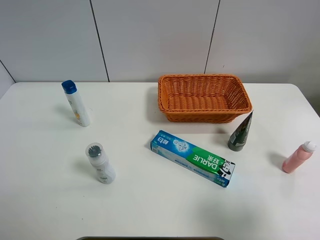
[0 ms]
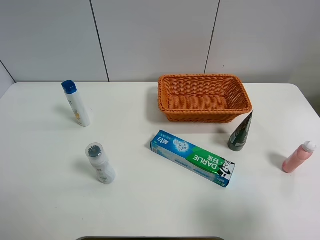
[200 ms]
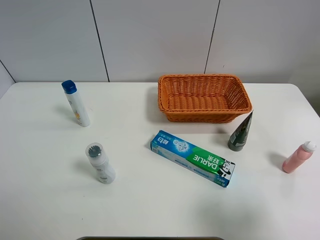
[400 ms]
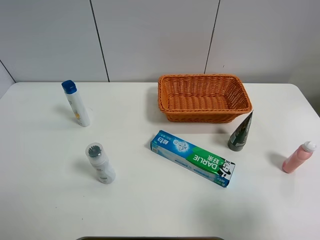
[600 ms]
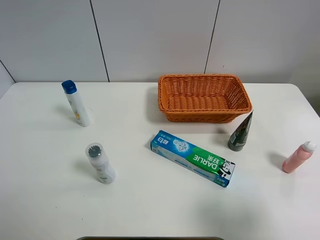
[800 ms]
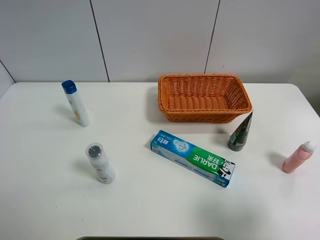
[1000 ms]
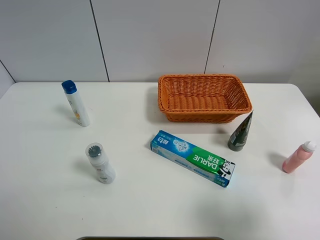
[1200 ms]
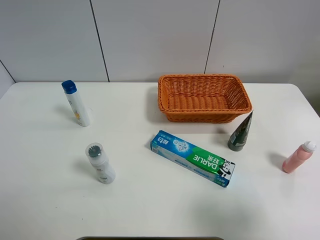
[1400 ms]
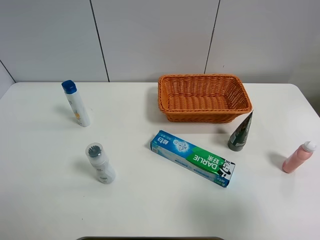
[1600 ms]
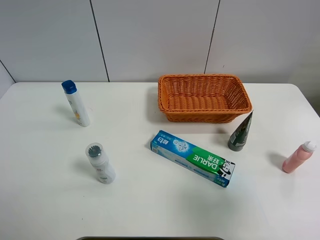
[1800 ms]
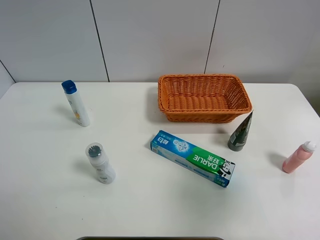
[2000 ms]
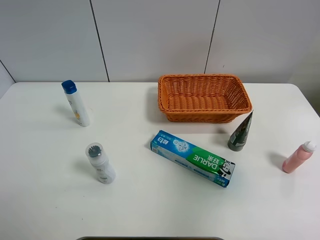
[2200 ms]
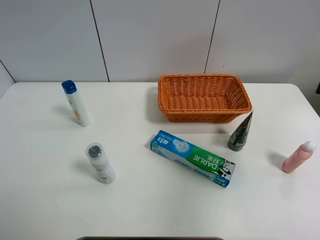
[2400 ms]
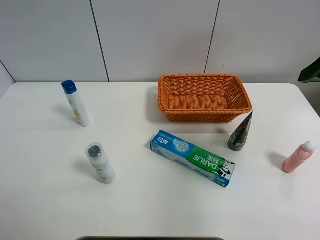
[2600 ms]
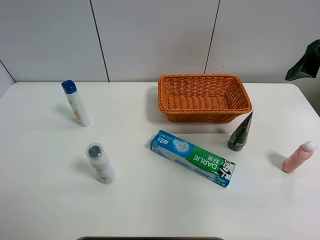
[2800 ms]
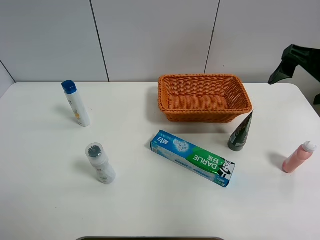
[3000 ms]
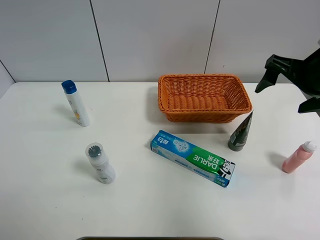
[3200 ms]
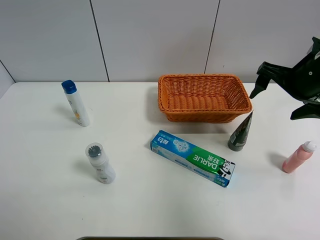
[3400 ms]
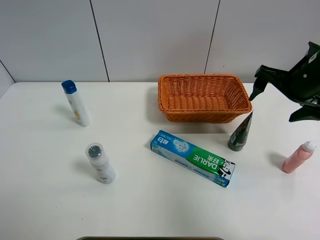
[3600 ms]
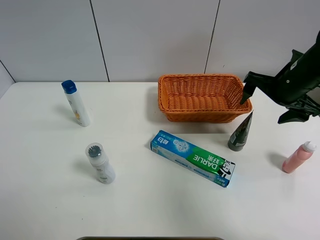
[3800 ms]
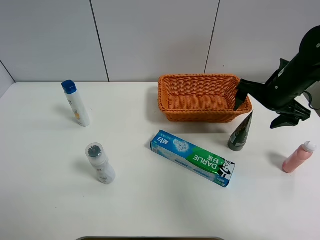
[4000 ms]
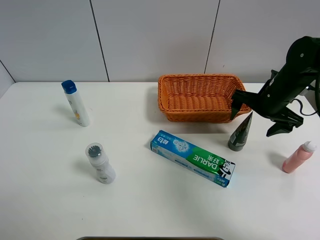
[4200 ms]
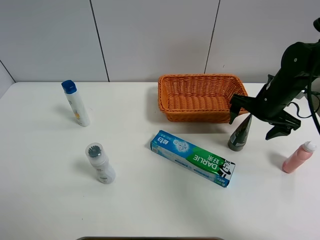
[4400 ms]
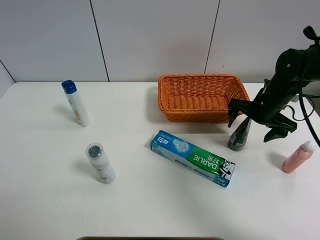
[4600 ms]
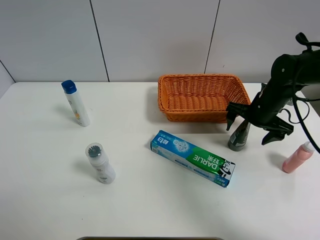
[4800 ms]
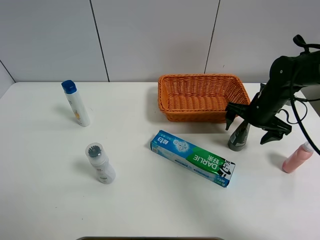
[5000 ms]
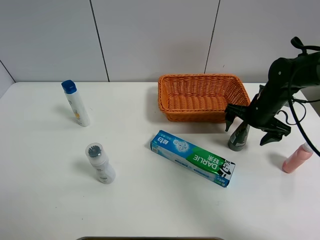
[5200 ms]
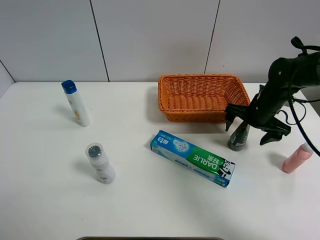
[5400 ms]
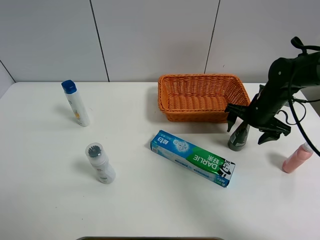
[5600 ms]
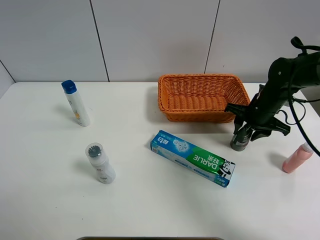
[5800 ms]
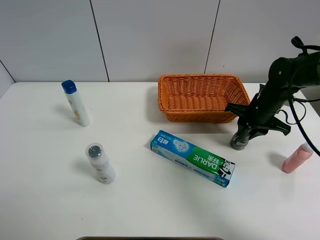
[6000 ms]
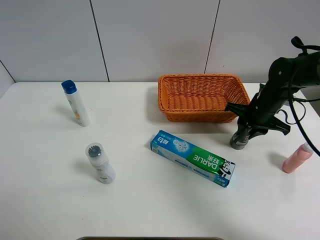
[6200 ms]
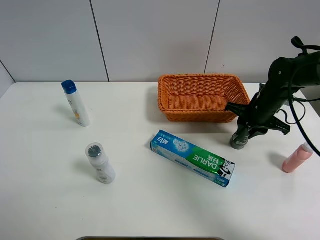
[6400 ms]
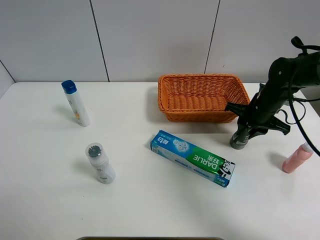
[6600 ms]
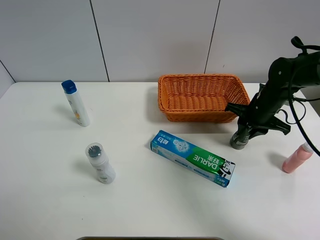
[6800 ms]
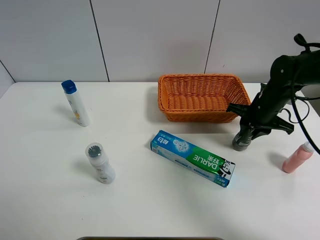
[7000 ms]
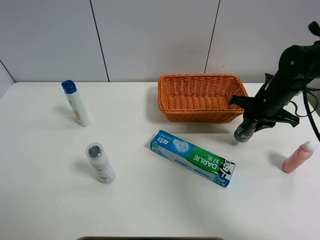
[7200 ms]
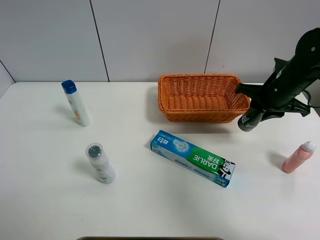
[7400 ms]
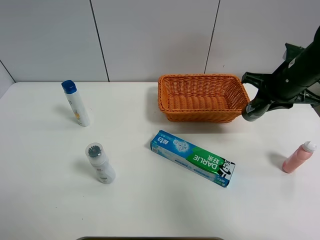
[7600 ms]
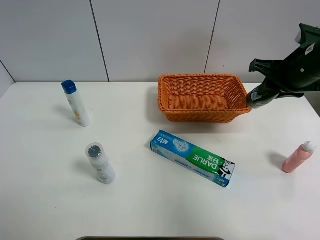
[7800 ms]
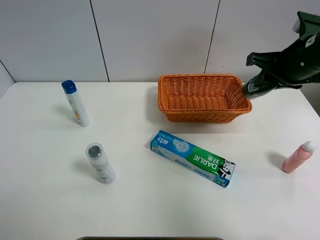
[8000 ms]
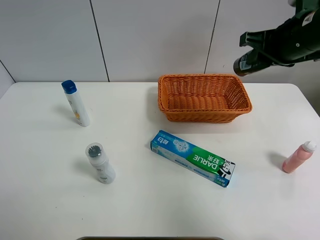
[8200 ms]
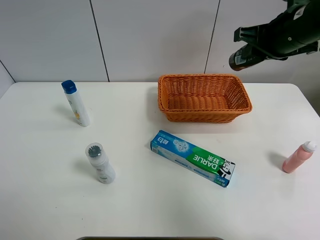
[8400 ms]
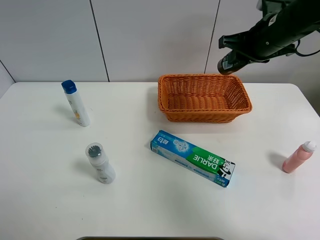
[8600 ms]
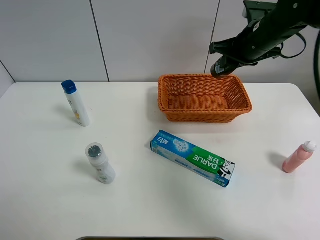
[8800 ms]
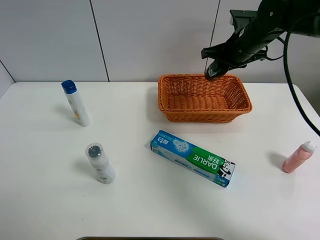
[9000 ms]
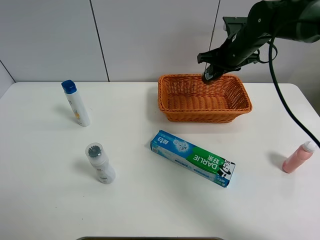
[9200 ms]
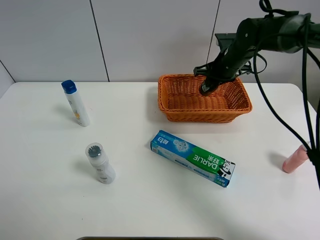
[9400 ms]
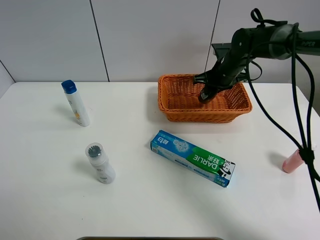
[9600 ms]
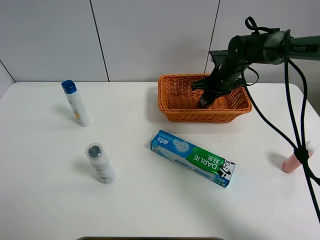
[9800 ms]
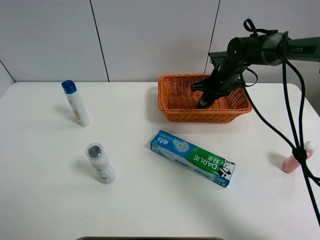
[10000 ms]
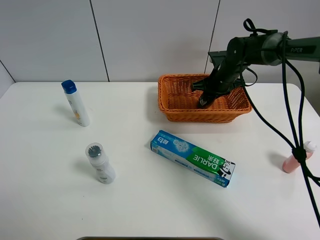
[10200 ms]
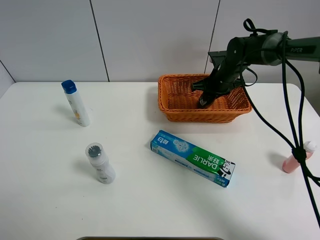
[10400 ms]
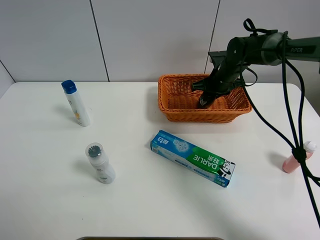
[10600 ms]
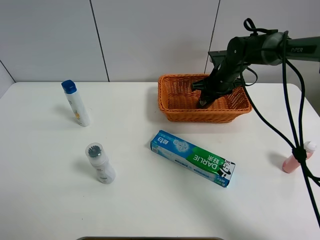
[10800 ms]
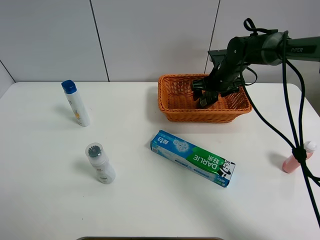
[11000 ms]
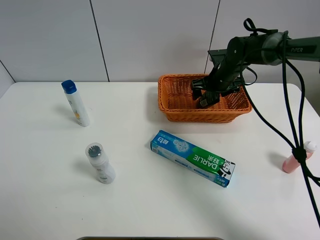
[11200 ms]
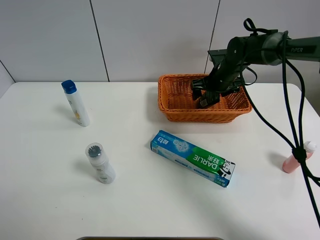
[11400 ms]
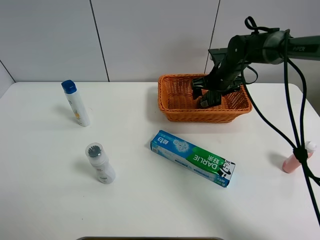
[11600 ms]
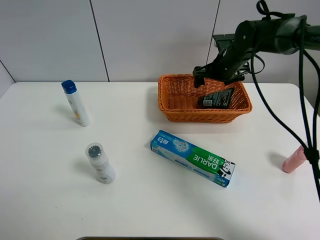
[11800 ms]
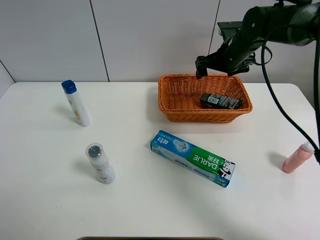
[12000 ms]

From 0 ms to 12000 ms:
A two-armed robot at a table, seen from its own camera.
Task of the whole recording: Place the object closest to the toothpaste in the basket.
Step, from 0 ms to 6000 ms: Grasp the soft facial cleanser with right gripper.
From 1600 ms to 3000 ms: The right gripper moves forward, some 25 cm.
From 3000 ms to 4400 ms: The right gripper goes some 15 cm downward and forward.
From 4400 ms to 6000 ms: The right gripper closes up.
From 6000 ms to 7600 ms: The right gripper travels upward by approximately 10 cm.
From 7600 ms to 9000 ms: The right gripper moves forward and to the left, approximately 15 cm.
From 9000 ms to 10400 ms: The right gripper heads downward, covering about 10 cm.
From 10400 ms to 12000 ms: The right gripper is displaced upward by roughly 10 cm, and opens up.

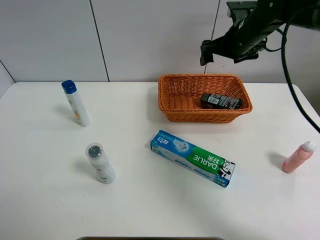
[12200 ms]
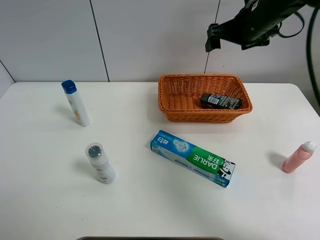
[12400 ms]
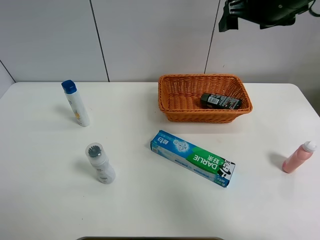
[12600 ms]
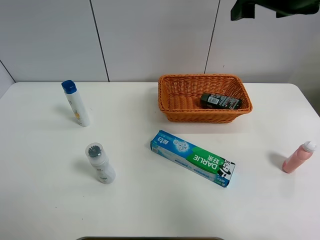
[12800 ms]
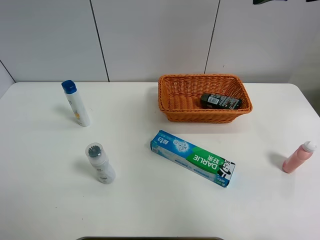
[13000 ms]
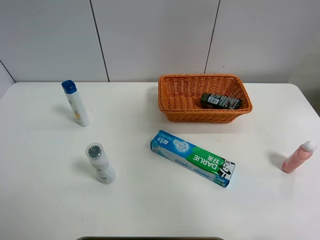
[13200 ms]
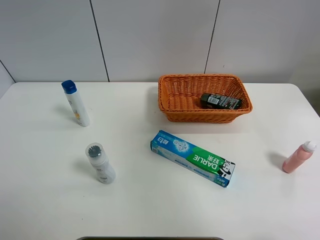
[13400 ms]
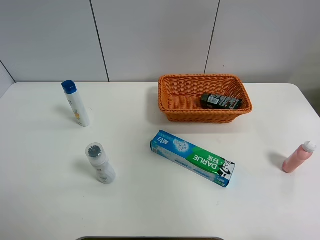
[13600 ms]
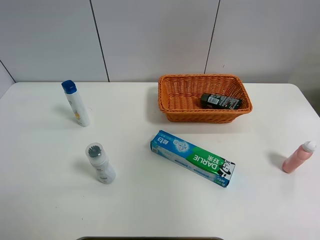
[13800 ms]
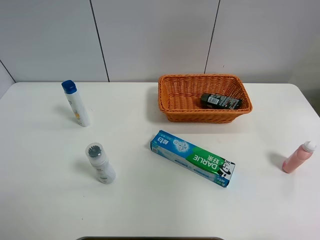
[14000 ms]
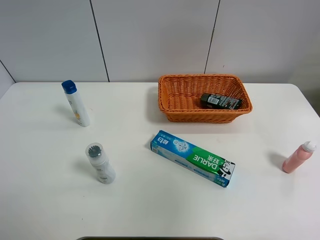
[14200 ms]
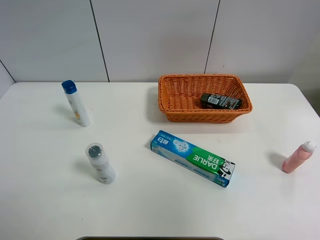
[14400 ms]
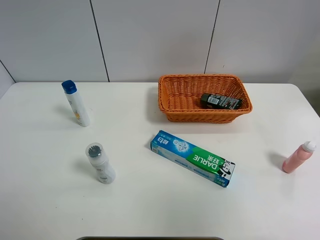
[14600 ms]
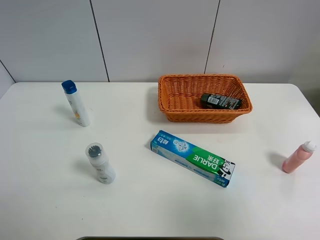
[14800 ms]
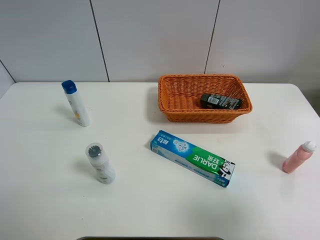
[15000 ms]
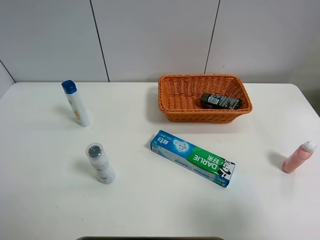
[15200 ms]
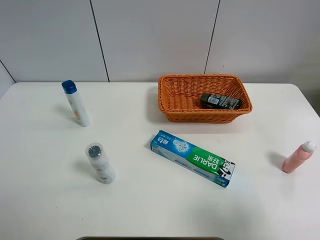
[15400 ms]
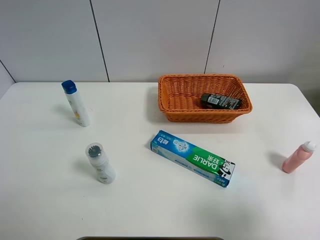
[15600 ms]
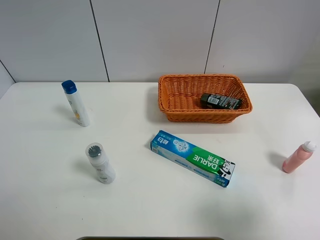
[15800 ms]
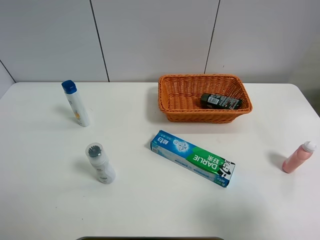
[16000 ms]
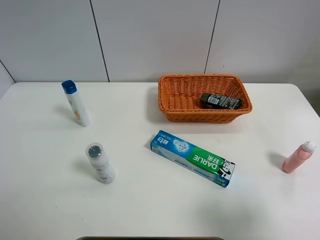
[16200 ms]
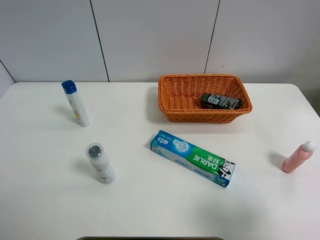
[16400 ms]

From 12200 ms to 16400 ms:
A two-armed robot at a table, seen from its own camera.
Task of the whole recording: Place the object closest to the toothpaste in the basket.
From 12200 ms to 13600 ms: The right gripper moves backward and upward, roughly 35 cm.
From 13600 ms to 15000 ms: The right gripper shifts roughly 20 cm downward and backward.
